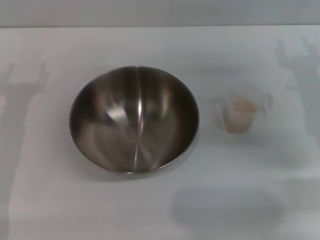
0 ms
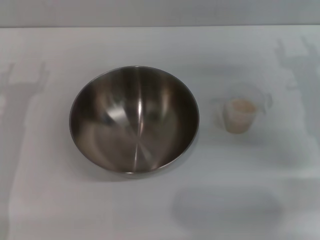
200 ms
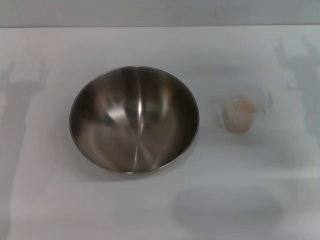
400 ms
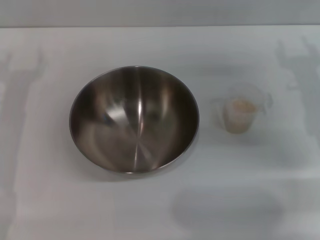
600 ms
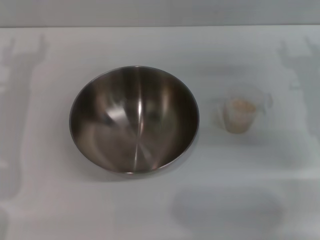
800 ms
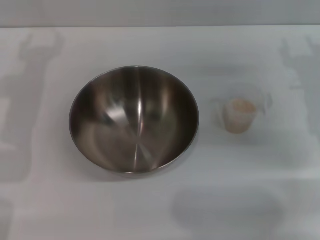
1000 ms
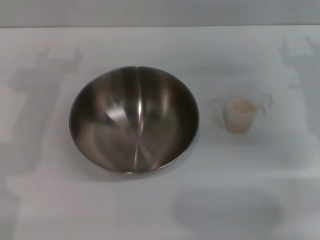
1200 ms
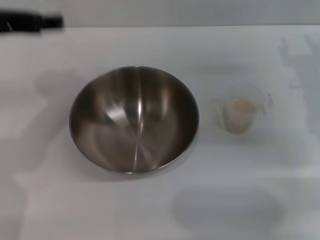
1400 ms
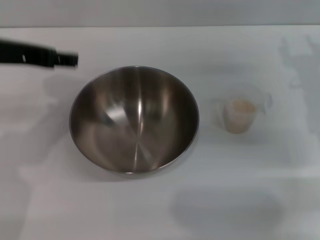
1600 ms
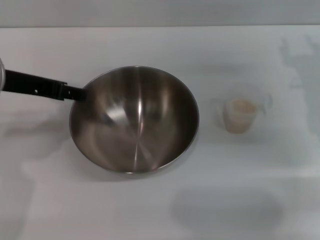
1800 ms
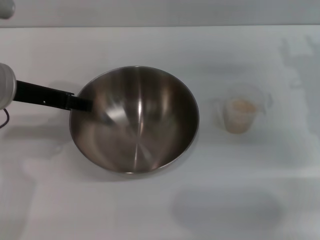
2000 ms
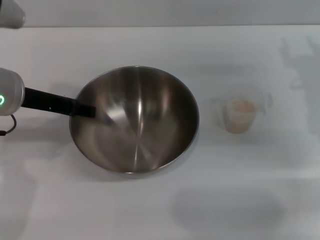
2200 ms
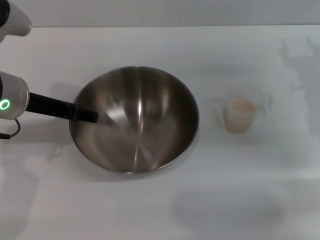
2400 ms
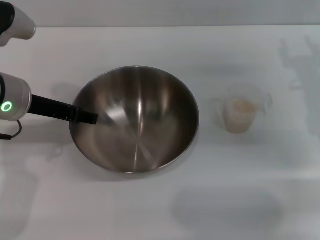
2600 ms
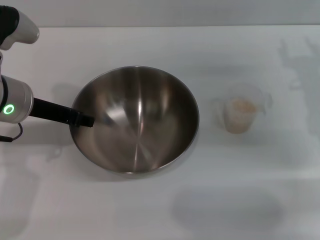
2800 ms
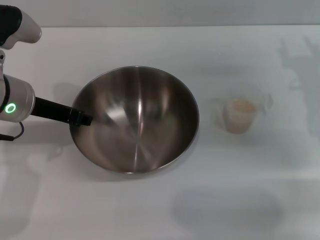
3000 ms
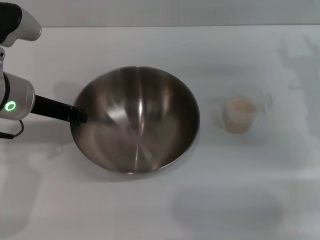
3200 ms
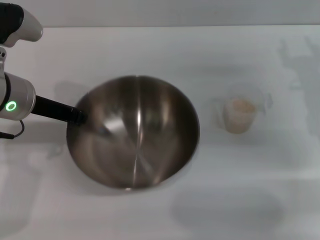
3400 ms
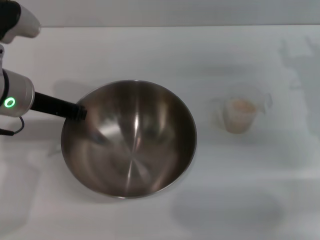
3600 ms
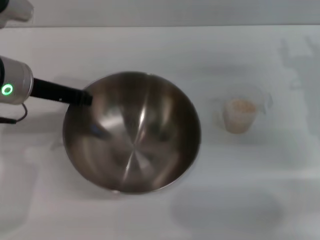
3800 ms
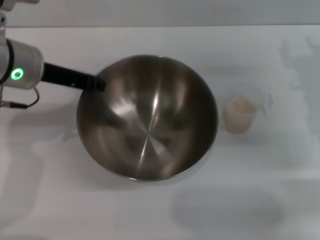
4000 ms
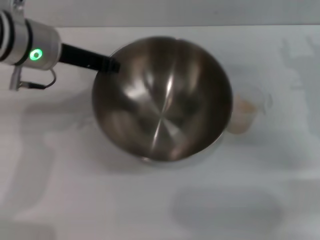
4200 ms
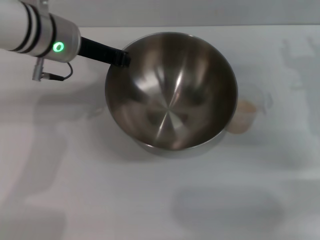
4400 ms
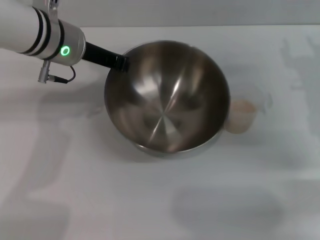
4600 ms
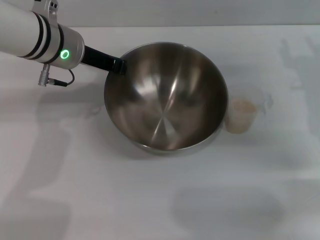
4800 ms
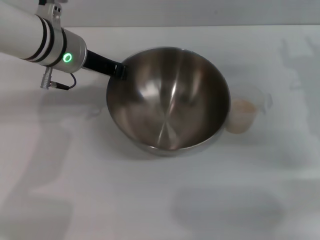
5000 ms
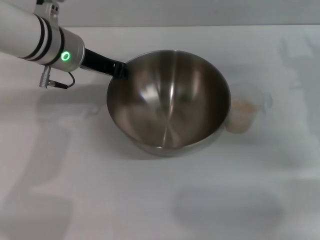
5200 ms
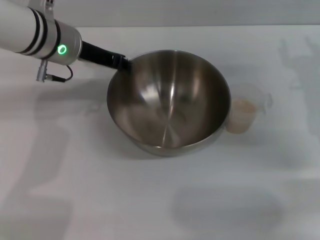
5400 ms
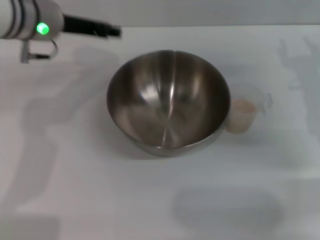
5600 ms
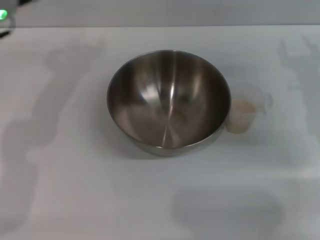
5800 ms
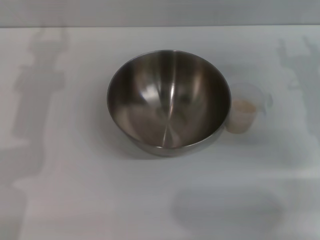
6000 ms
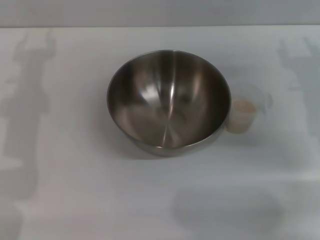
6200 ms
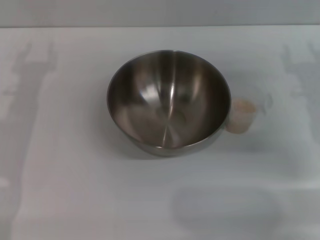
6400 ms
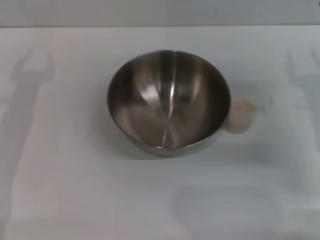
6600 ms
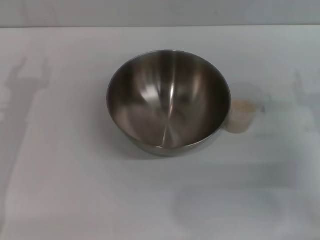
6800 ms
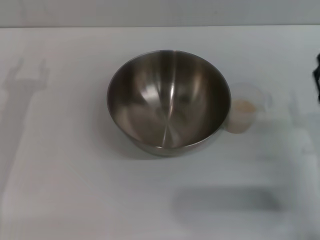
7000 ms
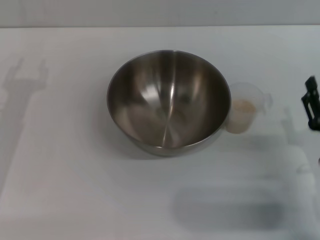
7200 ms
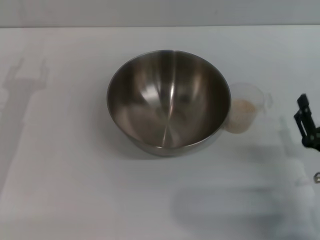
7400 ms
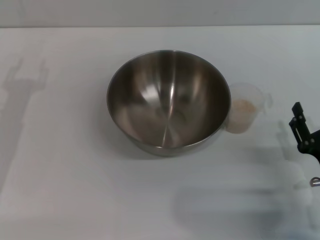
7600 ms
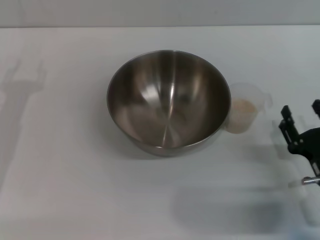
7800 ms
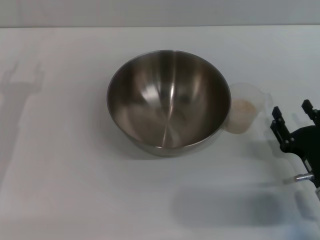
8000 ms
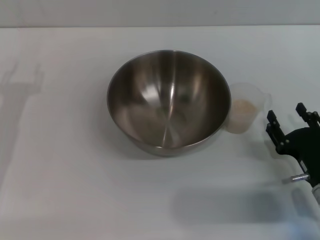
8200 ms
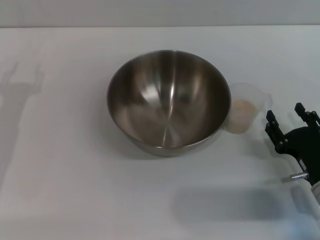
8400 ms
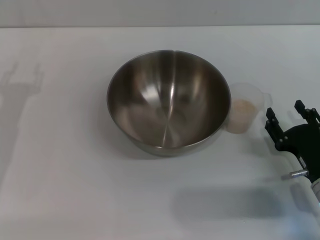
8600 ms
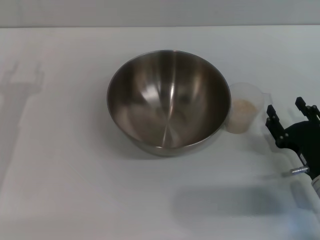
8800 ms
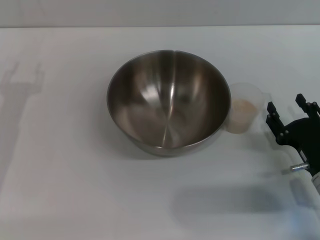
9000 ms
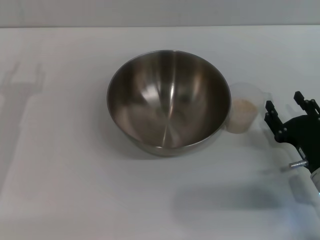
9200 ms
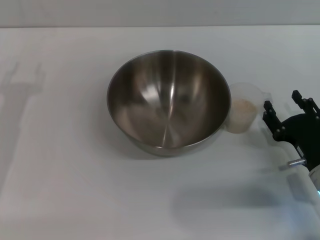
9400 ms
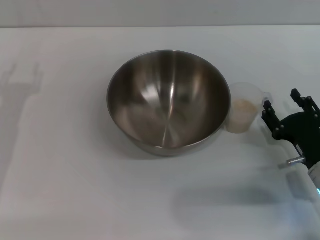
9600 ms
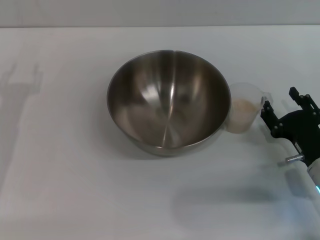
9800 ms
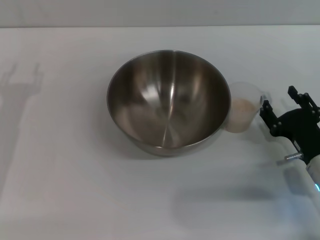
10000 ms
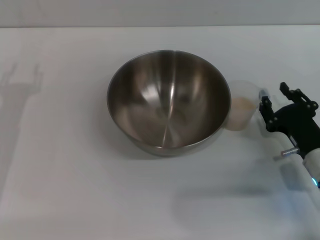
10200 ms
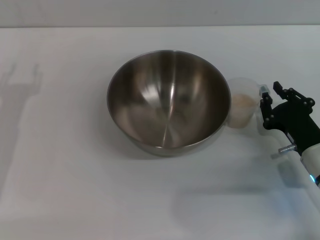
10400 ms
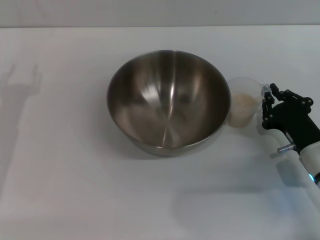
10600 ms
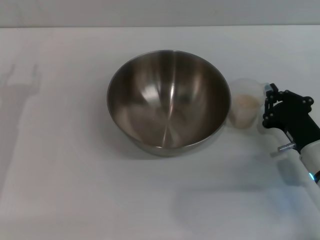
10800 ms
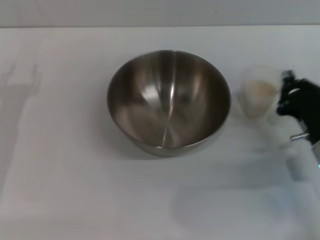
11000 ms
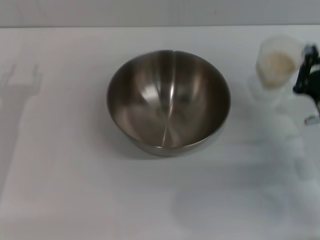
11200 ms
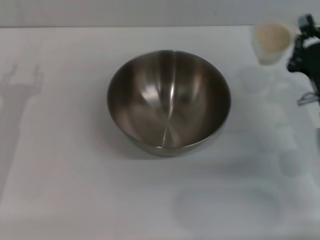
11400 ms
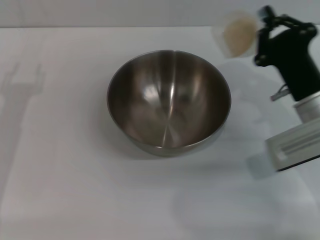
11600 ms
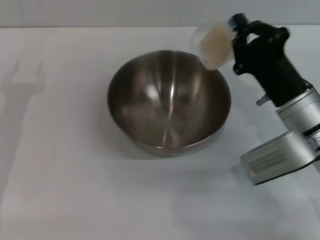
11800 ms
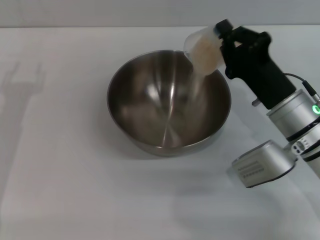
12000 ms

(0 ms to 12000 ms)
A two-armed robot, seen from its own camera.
Task of the whole recording: Place the bowl in the middle of the table with one hand and pour the rice from the grain cup into it with the other hand.
Step, 0 ms - 3800 ms: Pick up the bowl with the left gripper.
Step, 4000 ms - 5400 ms: Place the bowl in the center of view with the left gripper.
Step, 5600 ms - 11000 ms: Pick up the cup with rice in it with the right gripper.
0 ms - 1600 ms: The left gripper is displaced upward and to the right by roughly 15 cm.
1600 ms - 3000 ms: The left gripper shifts about 5 cm downward.
3000 ms - 4400 ms: The left gripper travels forward and to the right by about 10 cm, and closes up.
4400 ms - 6000 ms: The left gripper moves to the left, roughly 10 cm, and opens up.
6000 ms - 7600 ms: The right gripper shifts roughly 20 cm backward and downward.
7600 ms - 9000 ms: The grippers move only a little.
9000 ms - 10400 ms: The grippers stay close to where they were, moving slightly.
10400 ms - 12000 ms: The right gripper goes roughly 10 cm upward and to the left, and closes.

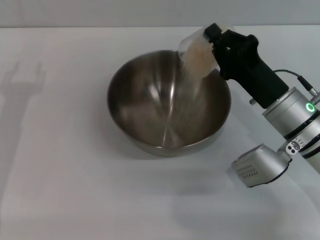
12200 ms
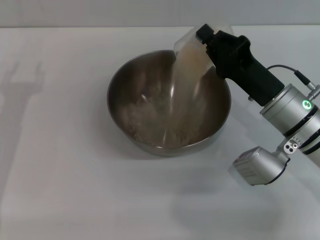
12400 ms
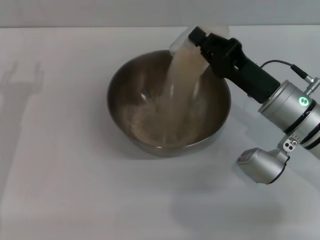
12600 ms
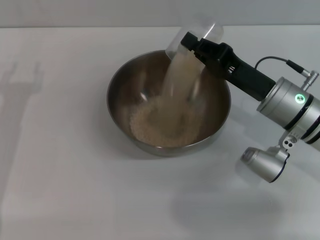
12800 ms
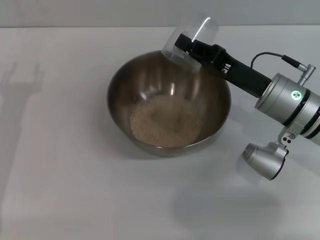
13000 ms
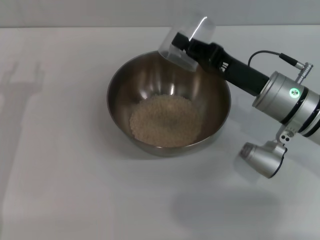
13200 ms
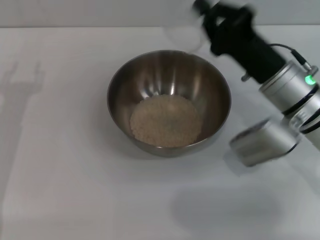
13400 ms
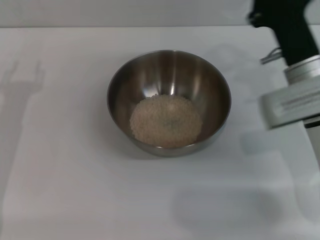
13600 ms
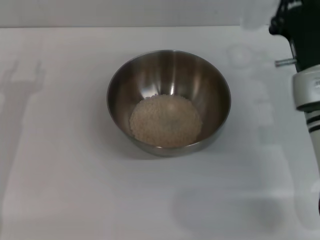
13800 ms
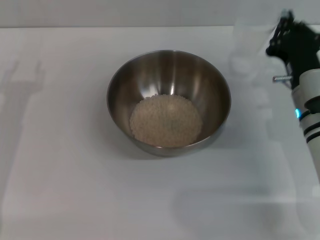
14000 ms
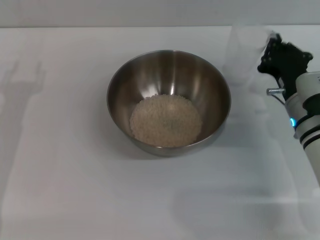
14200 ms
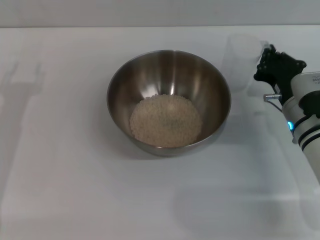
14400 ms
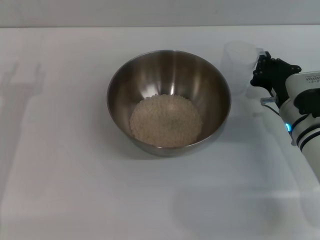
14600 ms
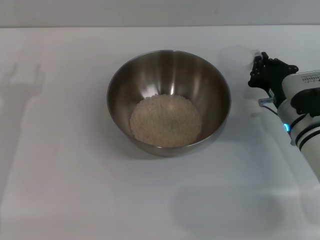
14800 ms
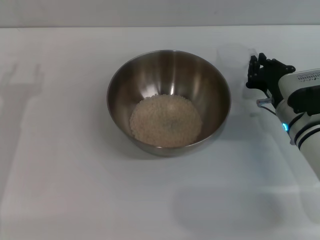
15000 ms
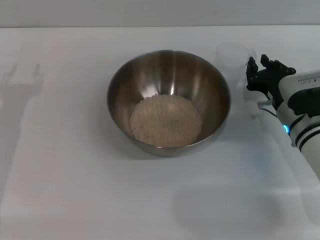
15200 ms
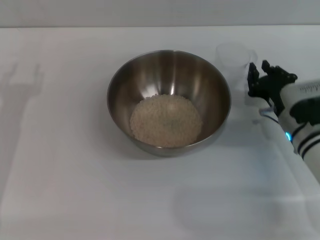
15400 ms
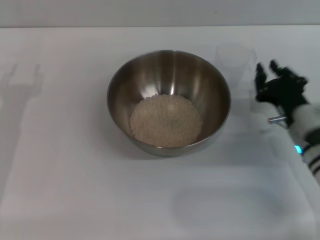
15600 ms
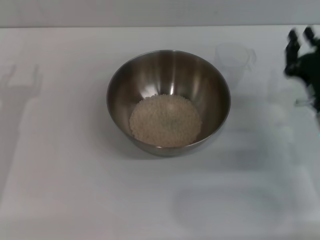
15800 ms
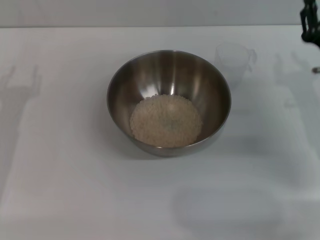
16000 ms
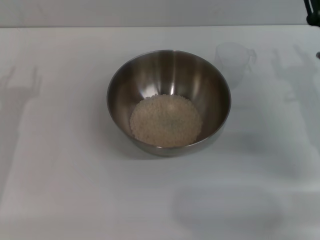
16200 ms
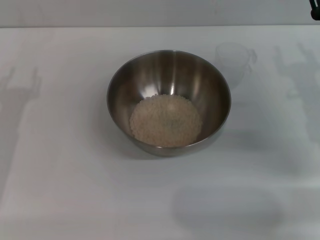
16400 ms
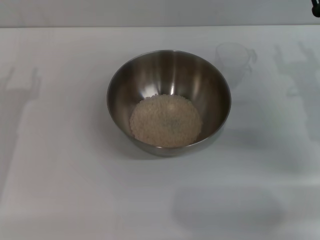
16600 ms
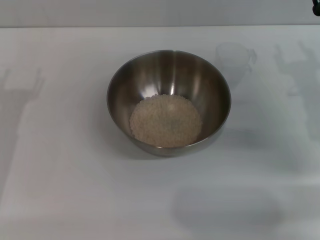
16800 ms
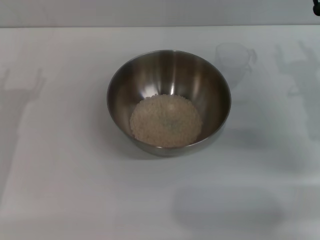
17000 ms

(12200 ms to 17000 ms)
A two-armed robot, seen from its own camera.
Task of the whole recording: Place the bowl in the middle of the table with one hand and pour the rice from the grain cup into it with the other hand.
Step, 12200 ms - 13200 ms: Pour the rice from the cup into the bowl with the right gripper.
Step, 13400 ms - 15400 ms: Place the cup on the table with the right gripper.
13800 ms - 15400 ms: The right gripper heads downward, covering some 5 cm.
15400 ms - 17000 ms: The right gripper heads upward and to the right, covering approximately 10 cm, and opens its fingers.
